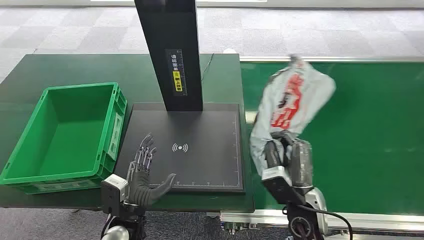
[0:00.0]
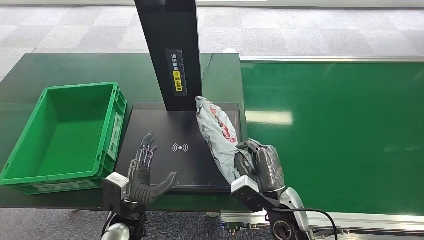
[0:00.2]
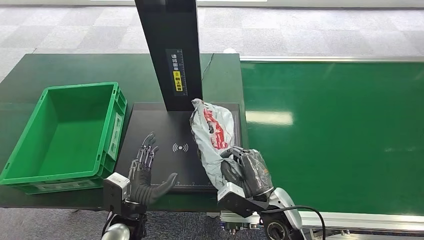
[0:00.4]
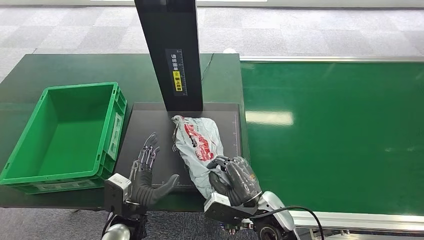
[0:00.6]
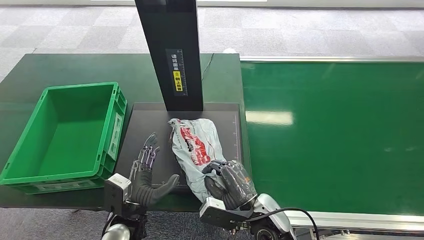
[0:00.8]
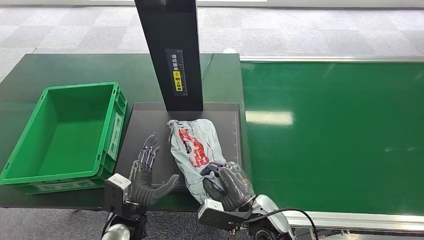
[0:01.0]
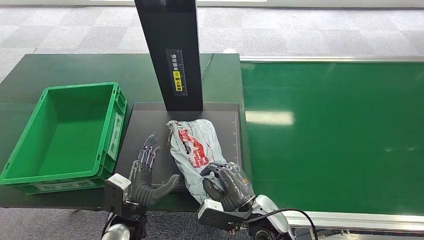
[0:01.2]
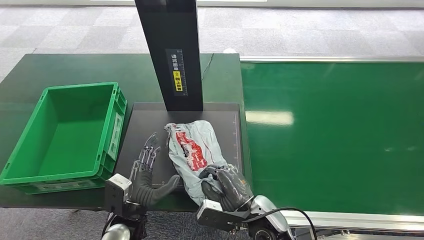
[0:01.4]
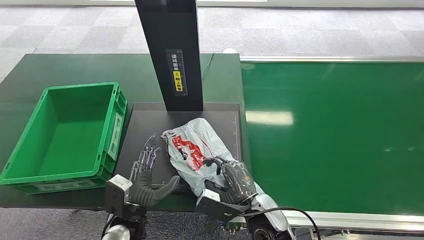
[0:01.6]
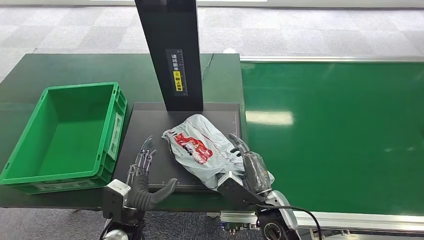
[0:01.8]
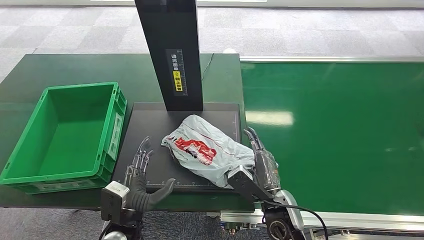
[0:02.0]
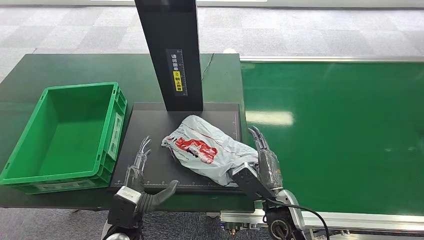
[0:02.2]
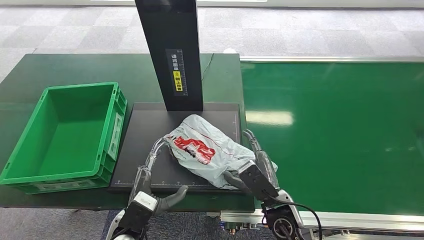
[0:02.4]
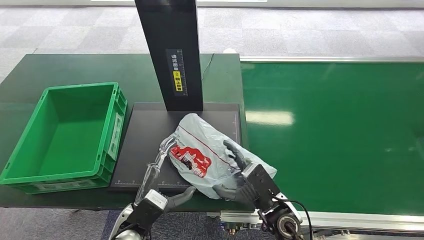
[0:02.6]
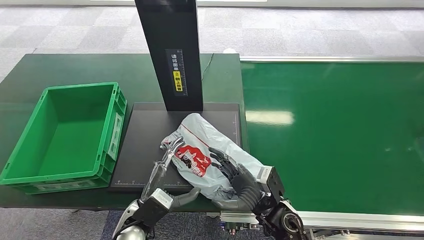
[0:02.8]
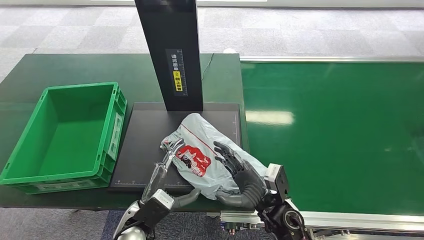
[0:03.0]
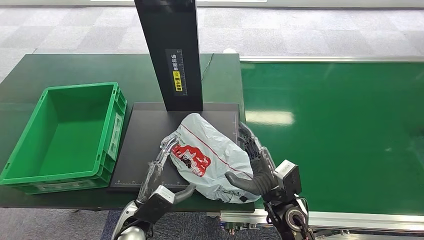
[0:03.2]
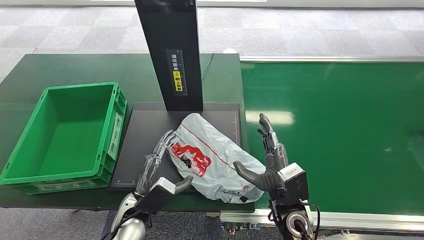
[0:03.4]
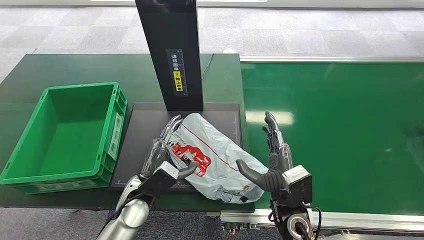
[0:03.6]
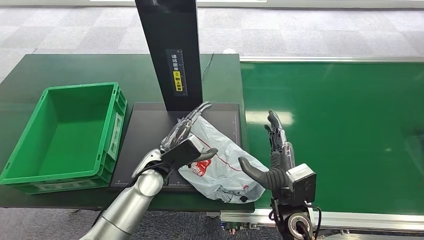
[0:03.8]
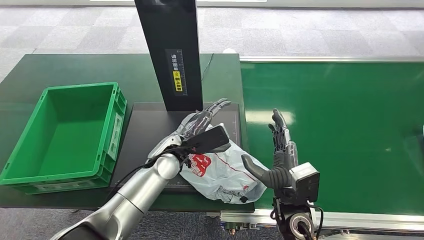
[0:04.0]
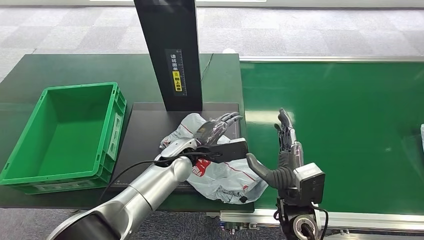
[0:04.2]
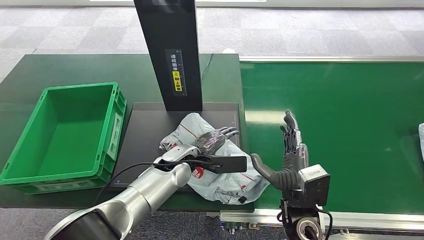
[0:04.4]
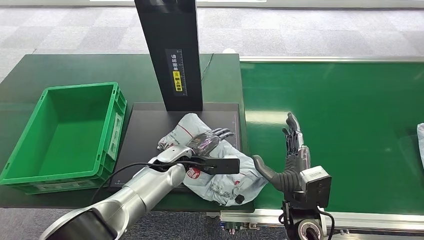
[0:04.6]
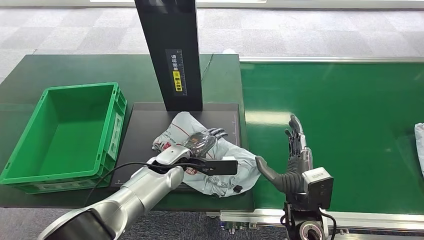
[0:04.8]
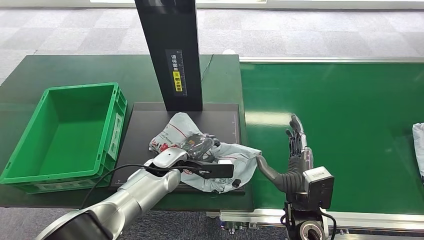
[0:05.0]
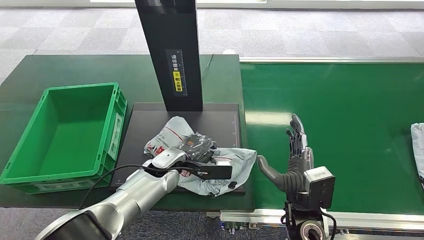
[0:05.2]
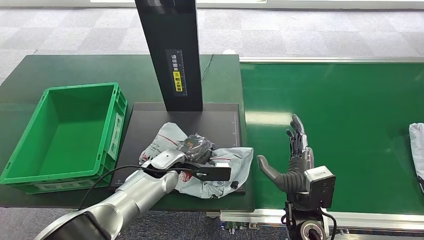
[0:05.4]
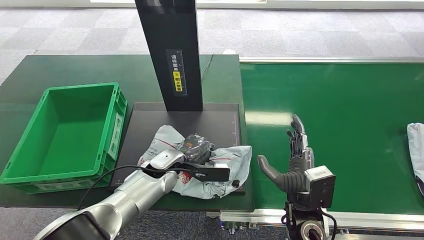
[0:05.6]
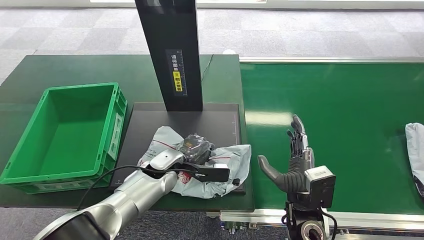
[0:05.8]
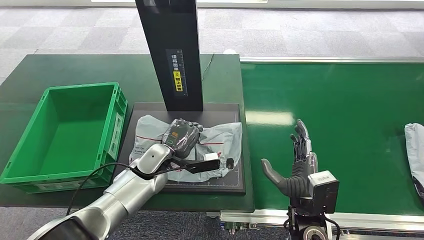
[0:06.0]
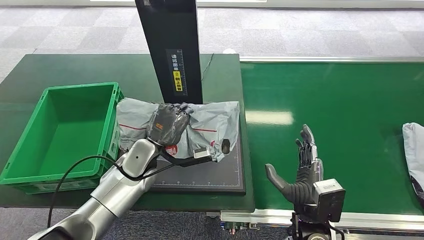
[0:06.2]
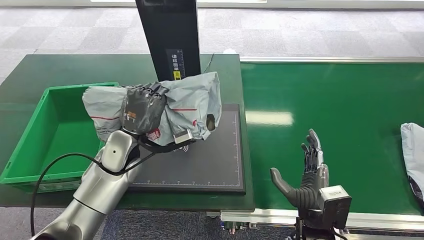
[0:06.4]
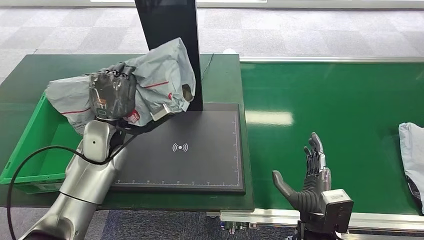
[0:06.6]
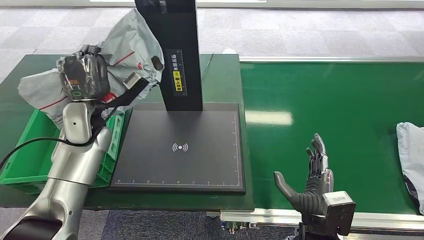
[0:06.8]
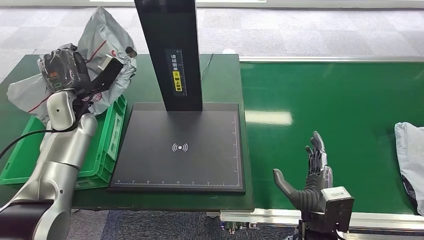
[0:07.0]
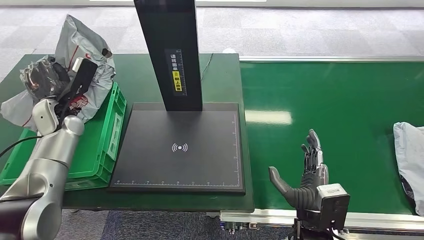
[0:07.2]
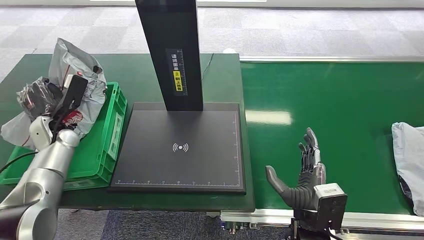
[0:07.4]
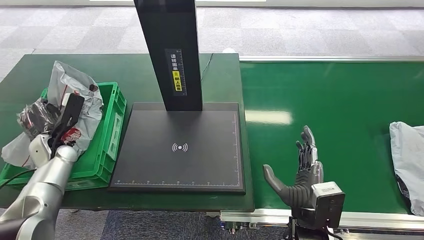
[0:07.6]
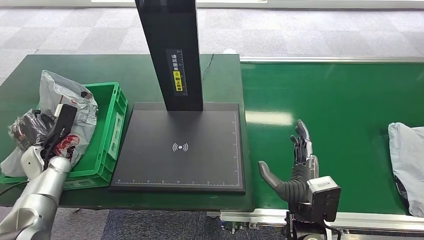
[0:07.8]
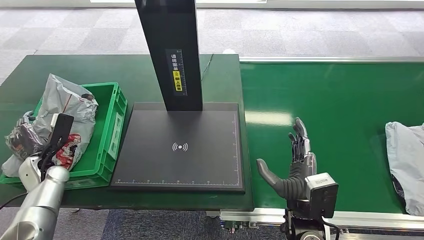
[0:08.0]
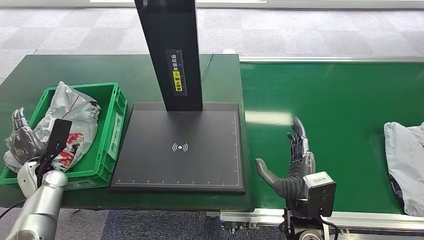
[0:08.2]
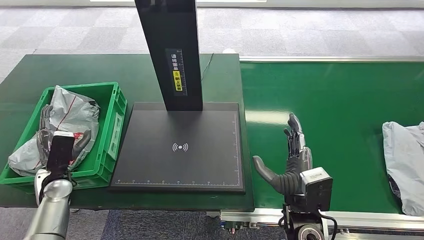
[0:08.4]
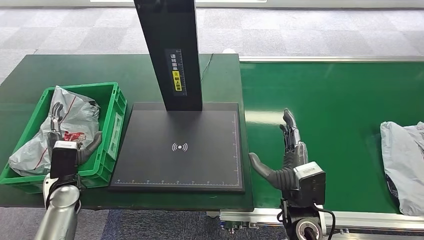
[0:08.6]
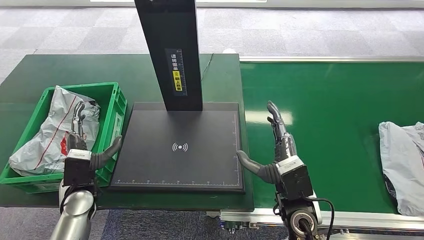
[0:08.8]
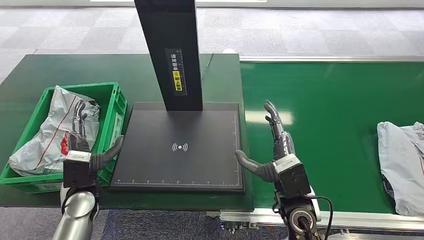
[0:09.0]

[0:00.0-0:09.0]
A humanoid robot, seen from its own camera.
Task of the whole recording: Weigh the package on the weighing device and place it in the left basket.
0:03.0 to 0:04.4: The right hand moves upward, about 5 cm. The left hand moves forward and to the right, approximately 15 cm.
0:07.6 to 0:09.0: The left hand travels to the right and backward by approximately 15 cm, while the right hand moves forward, about 5 cm.
